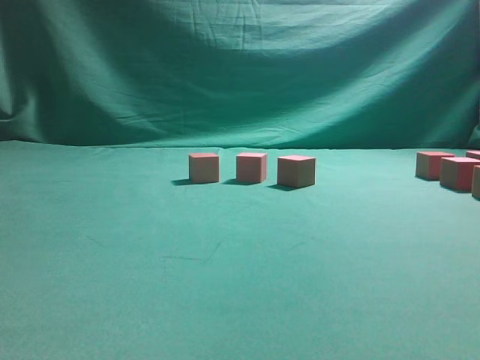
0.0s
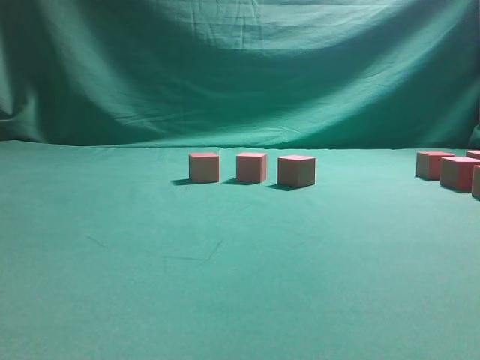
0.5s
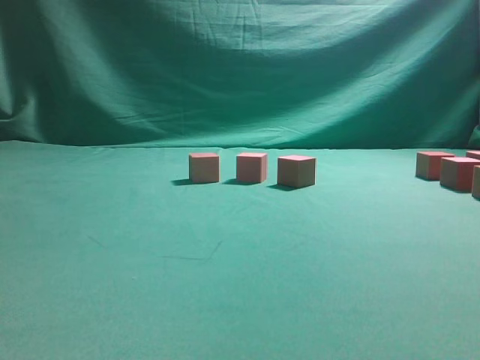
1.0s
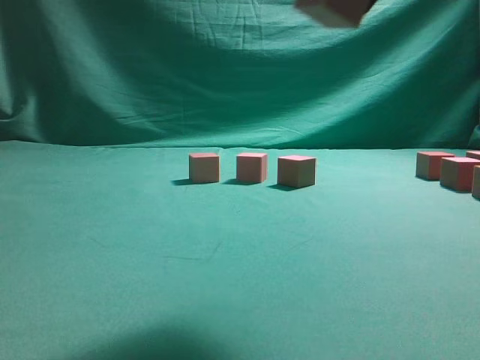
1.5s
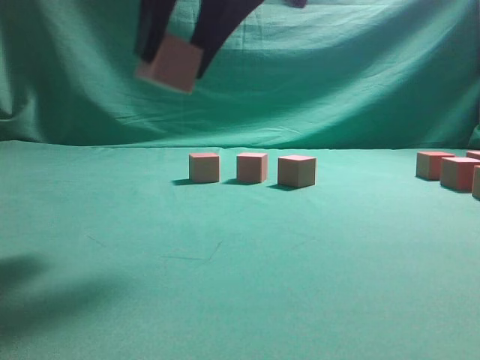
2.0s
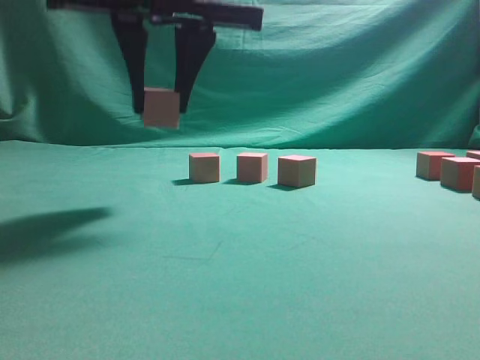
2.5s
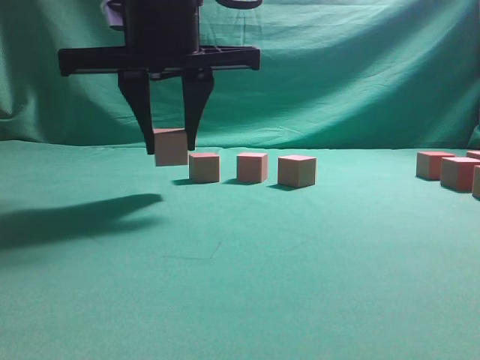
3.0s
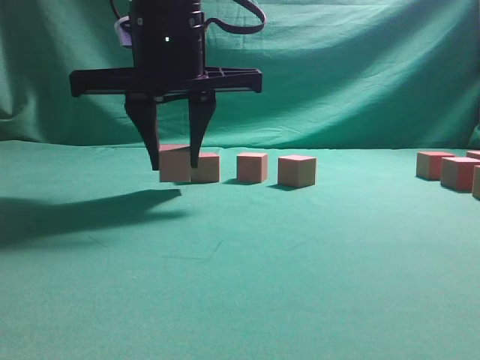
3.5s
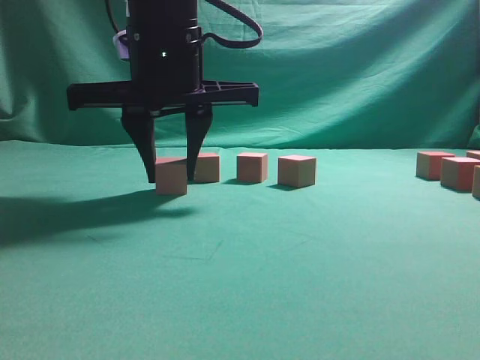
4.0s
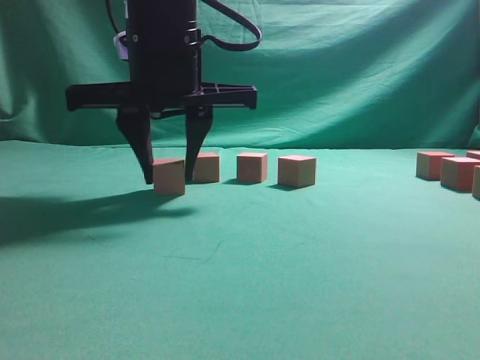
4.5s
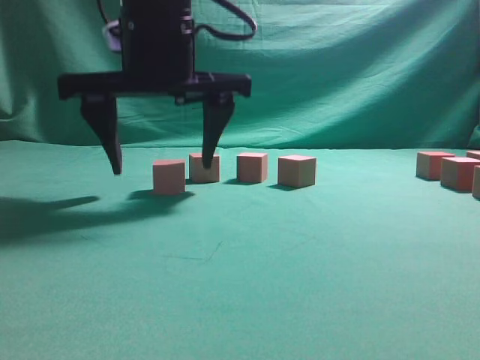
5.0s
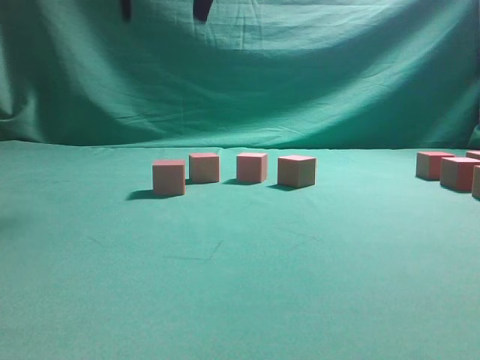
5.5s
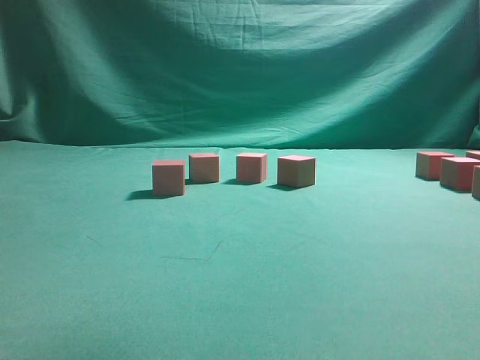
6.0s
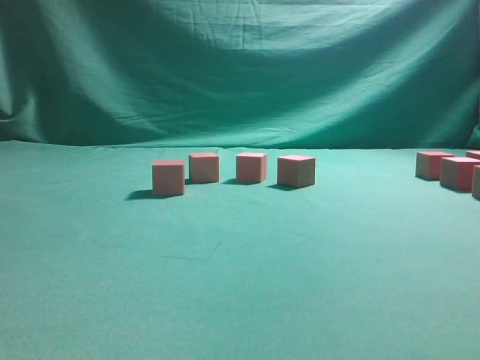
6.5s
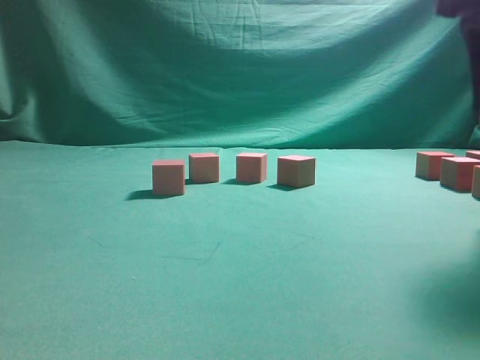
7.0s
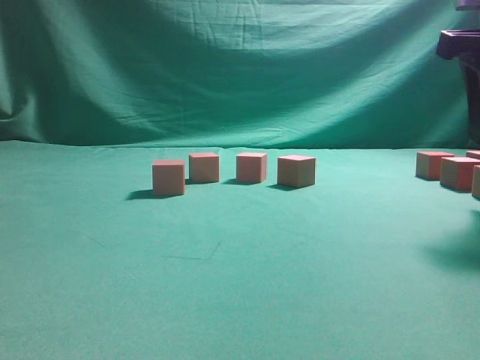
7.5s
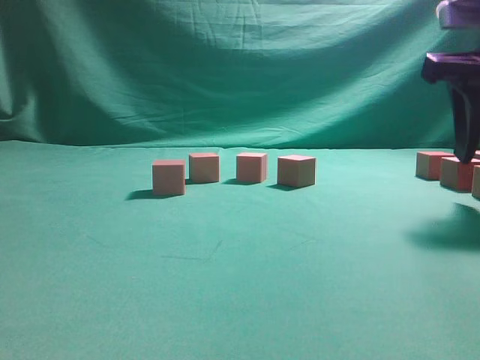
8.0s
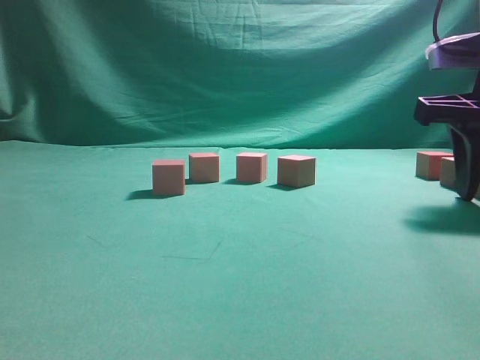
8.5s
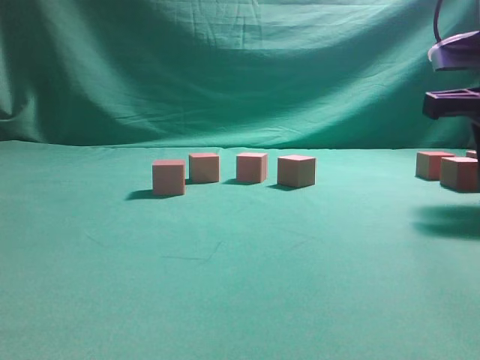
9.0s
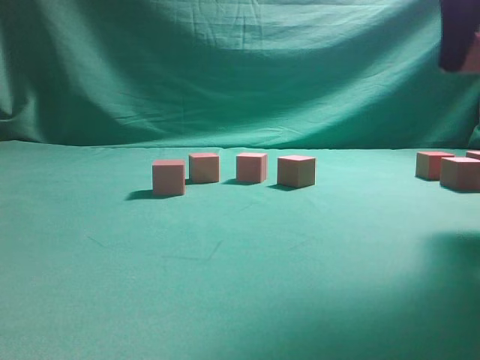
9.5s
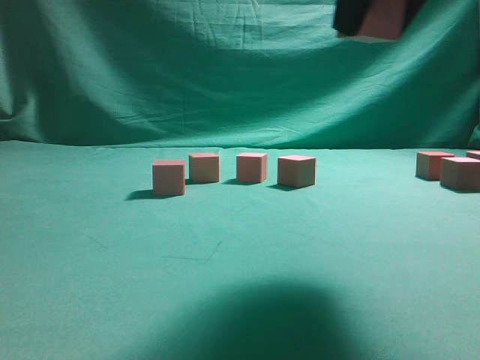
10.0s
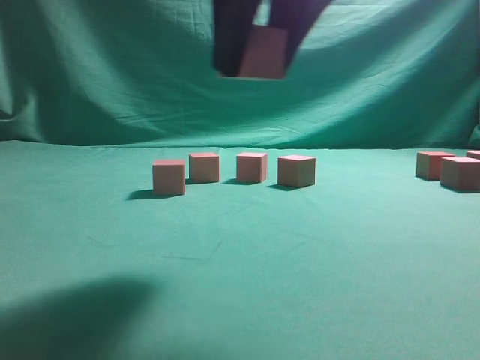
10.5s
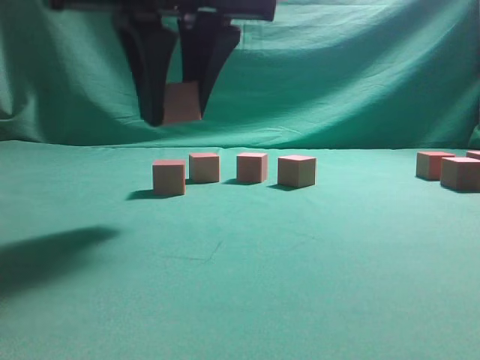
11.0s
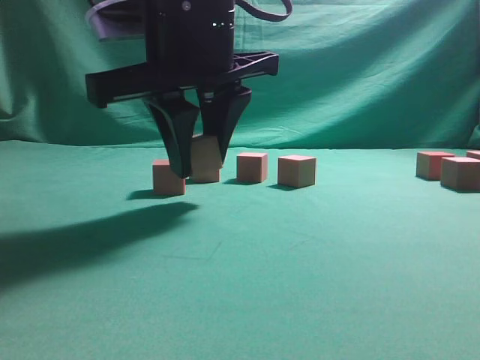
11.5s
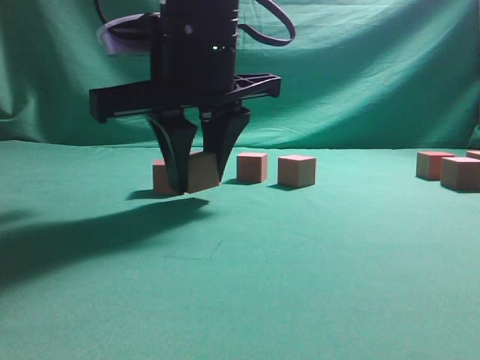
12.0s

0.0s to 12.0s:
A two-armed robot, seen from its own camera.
Task of the whole recording: pick up the multiple cubes in two columns one by one and place them in another position on the table.
Step, 0.5s to 5.0s: Place the block at the correct position to assemble the letter S.
Step, 5.5s to 9.0s: Pick up the block on the table.
0.0s to 2.0s: The right gripper is displaced to the left by approximately 30 cm.
2.0s to 4.0s: The right gripper travels downward, forward and to the left by about 15 cm.
4.0s to 6.0s: The right gripper is displaced upward and to the right by some 25 cm, and opens.
6.0s to 8.0s: The right gripper goes some 25 cm downward and to the right.
8.0s to 10.0s: The right gripper travels to the left, upward and backward by roughly 15 cm.
10.0s to 12.0s: The right gripper travels to the left, downward and forward by about 20 cm.

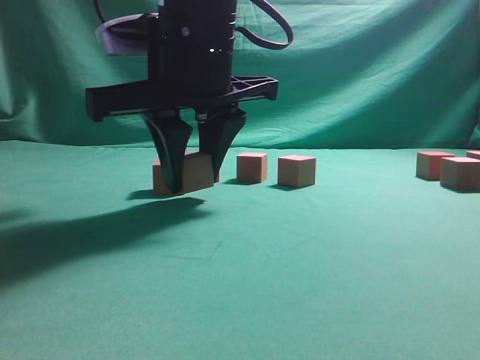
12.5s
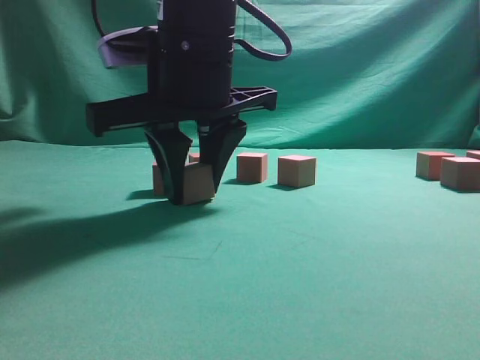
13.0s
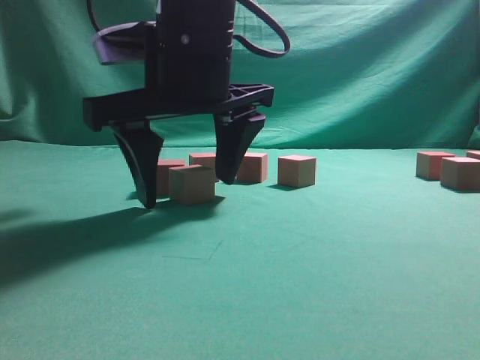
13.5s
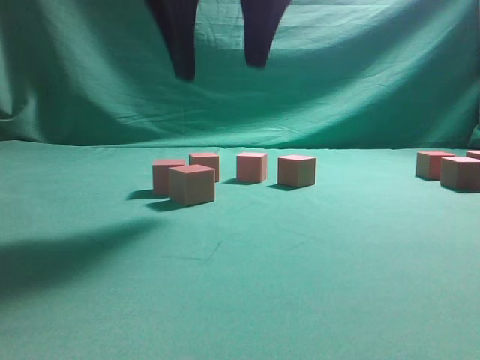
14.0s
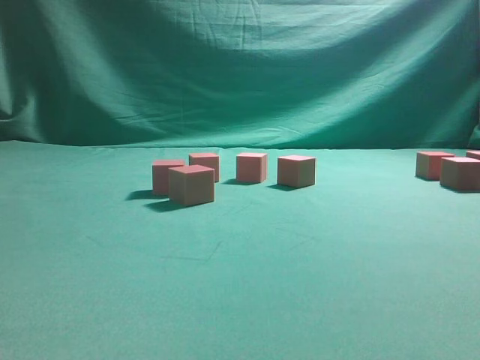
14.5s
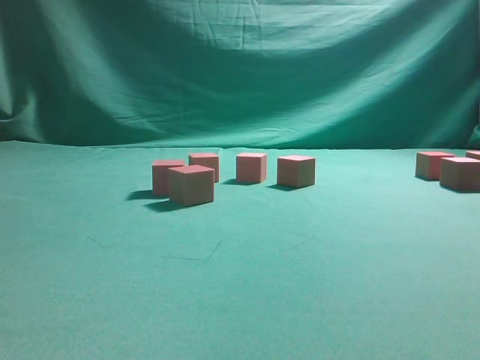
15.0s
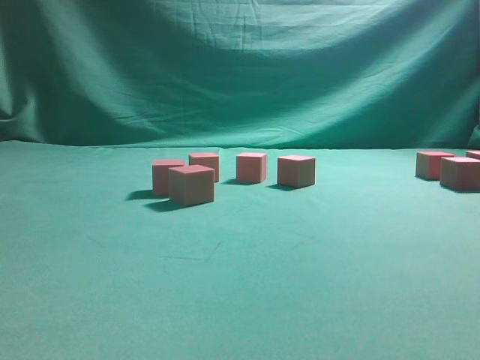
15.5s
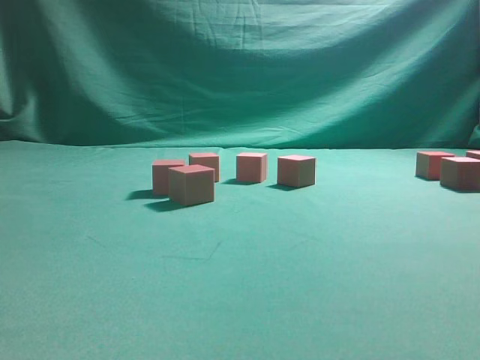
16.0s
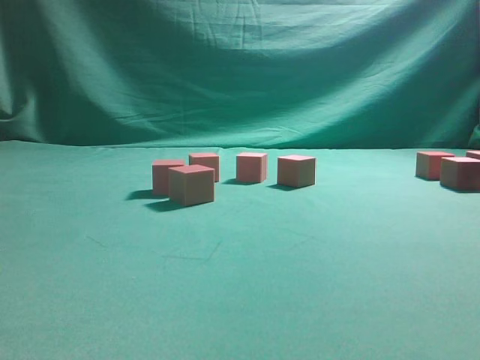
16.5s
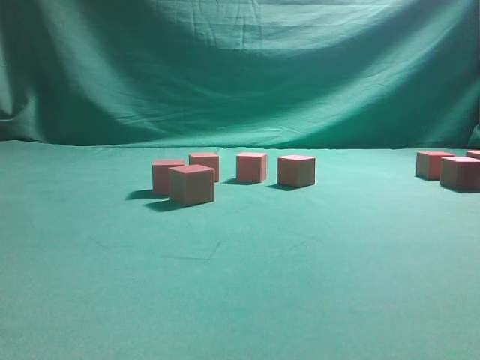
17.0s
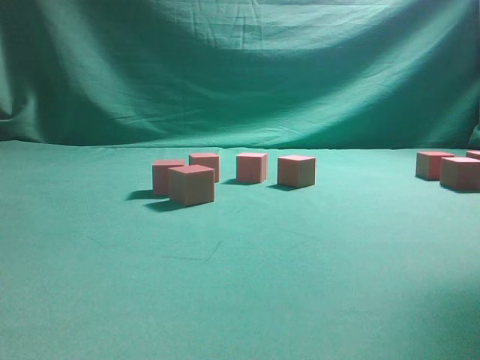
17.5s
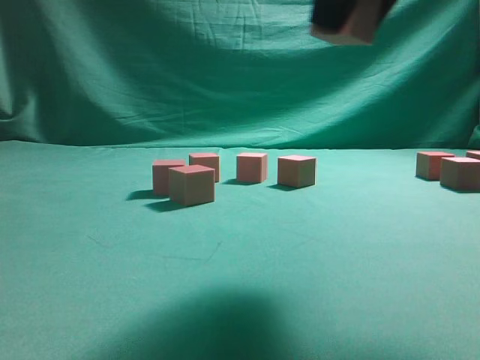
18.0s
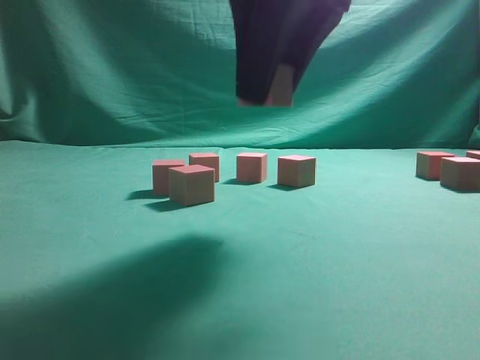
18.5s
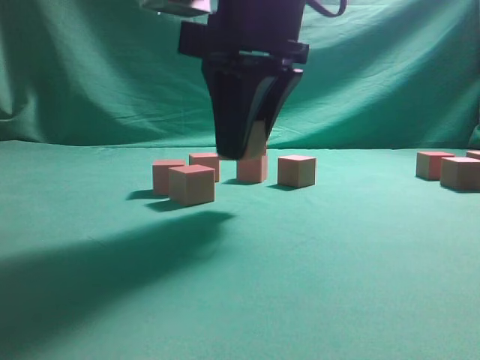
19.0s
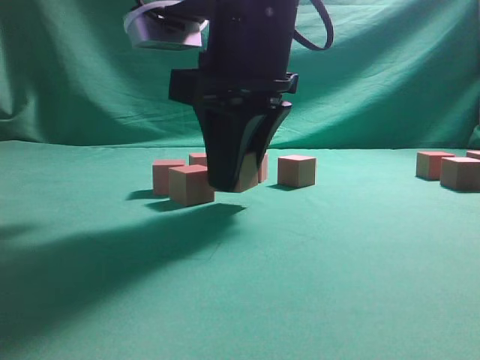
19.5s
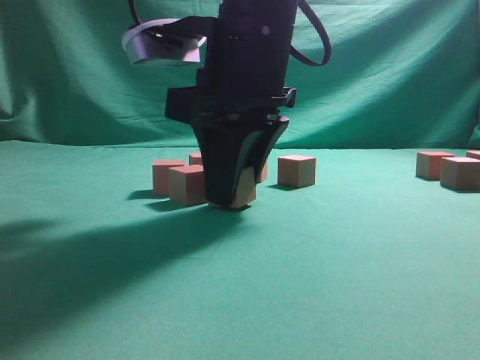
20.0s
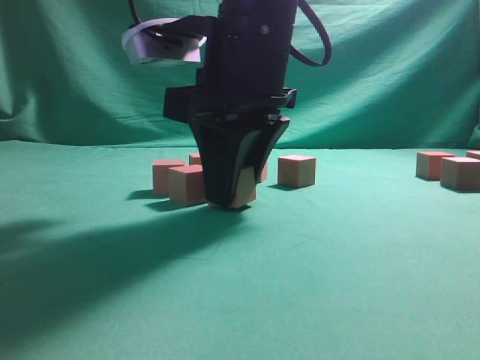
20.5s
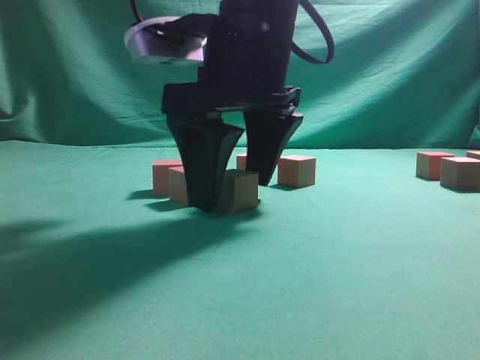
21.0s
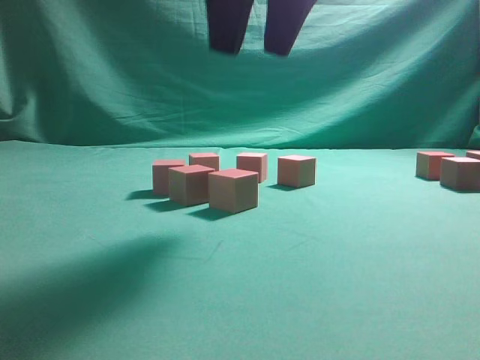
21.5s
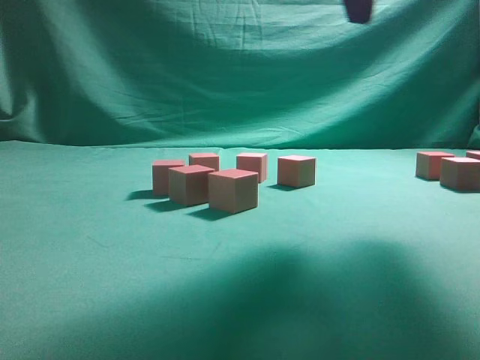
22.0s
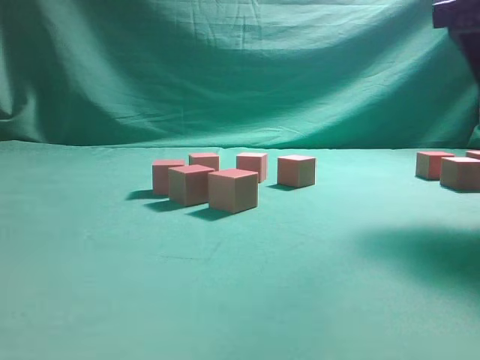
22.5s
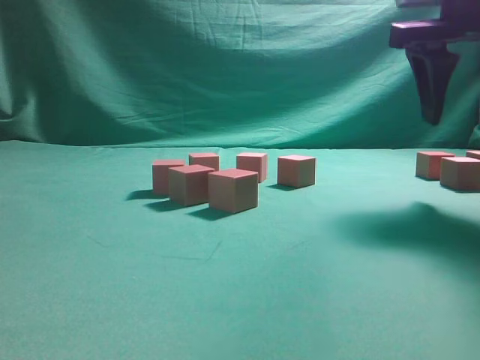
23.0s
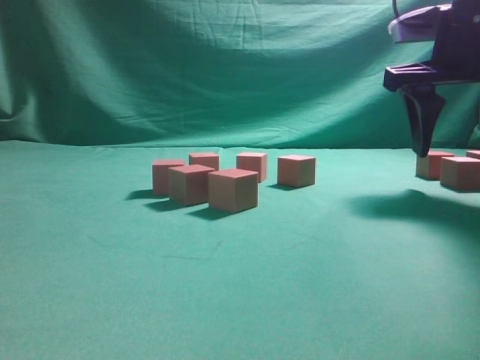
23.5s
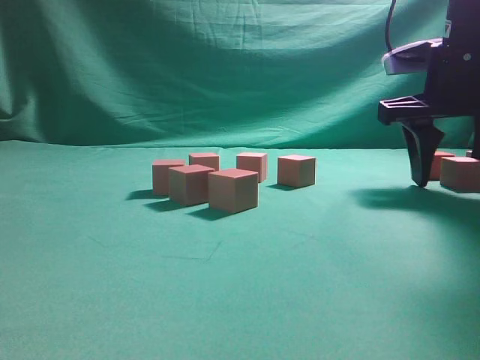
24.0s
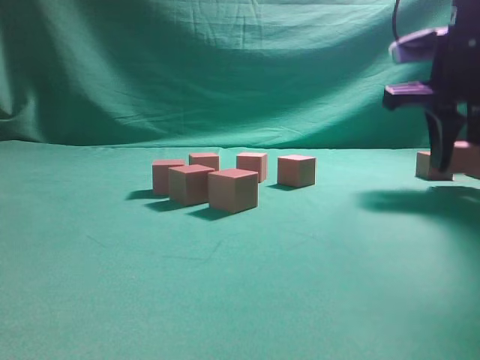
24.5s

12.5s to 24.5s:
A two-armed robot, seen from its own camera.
Task of the whole recording: pick up the multiple cubes in two columns one by one and place them in another position on the table.
Step, 14.0s to 17.0s: Pick up the block on the table.
Step, 18.0s to 21.0s: Place the block at the correct position to assemble the letter S.
Step, 21.5s to 24.5s: Pick up the block on the table.
12.5s to 14.5s: The right gripper heads upward and to the right, covering roughly 25 cm, and opens its fingers.
16.5s to 18.5s: The right gripper shifts roughly 25 cm to the left, and closes.
18.5s to 20.5s: The right gripper is displaced downward by some 10 cm.
20.5s to 22.5s: The right gripper moves to the right and upward, about 20 cm, and opens its fingers.
22.5s to 24.5s: The right gripper moves downward and forward, about 10 cm, and closes its fingers.

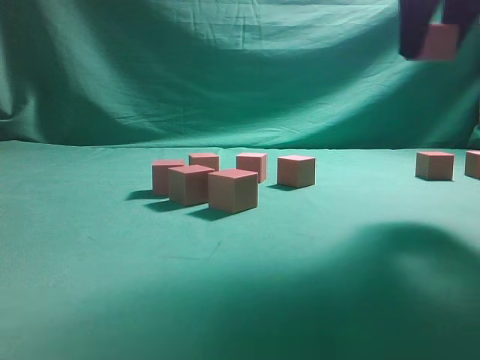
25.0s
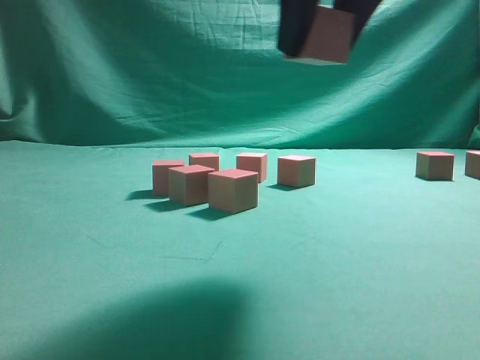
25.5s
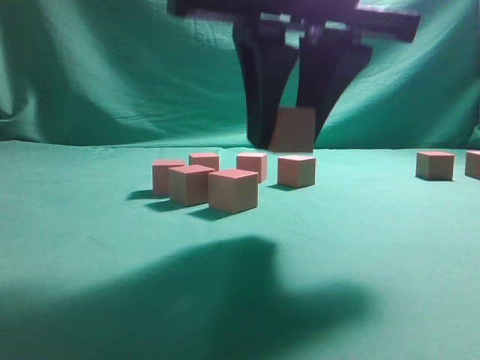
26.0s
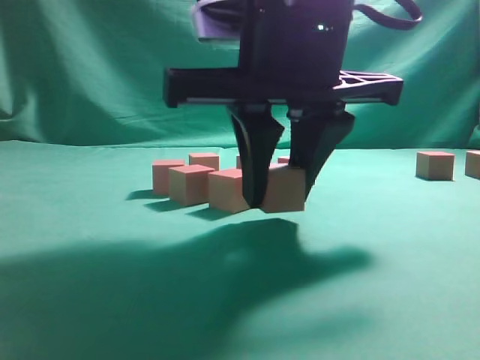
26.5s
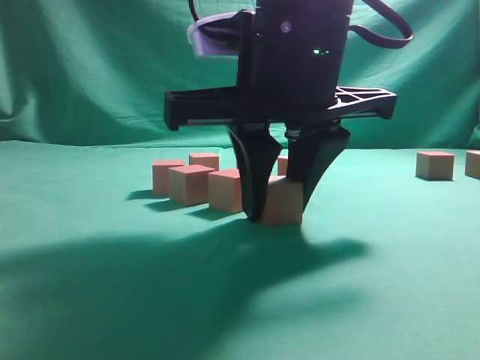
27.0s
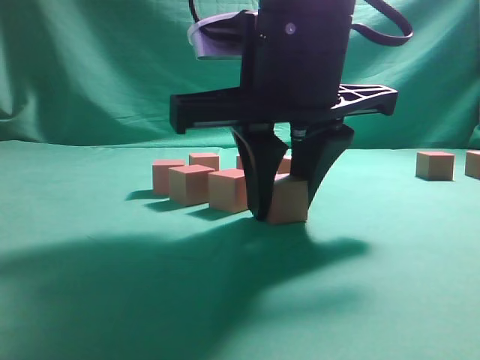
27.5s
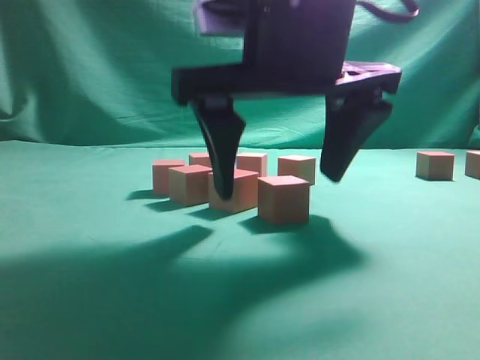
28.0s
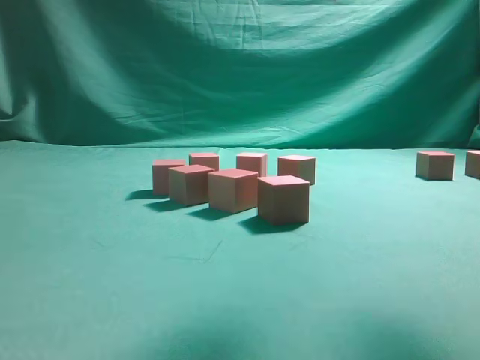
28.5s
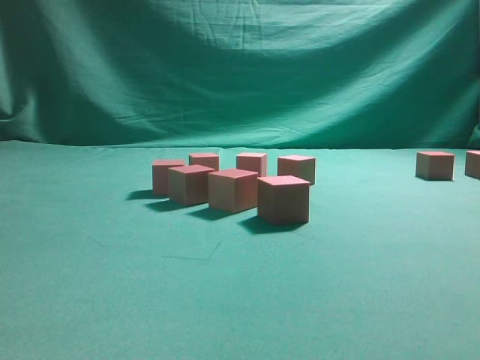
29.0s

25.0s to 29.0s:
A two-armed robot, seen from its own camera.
Task of the whole recording: pick up the multiple cubes in two columns one by one and place them in another position on the table.
Step, 25.0s to 28.0s: Place the block at the correct position to assemble the letter S.
25.0s to 27.0s: The right gripper goes approximately 20 cm to the left, downward and backward.
27.0s to 29.0s: The right gripper travels upward and to the right by approximately 25 cm.
